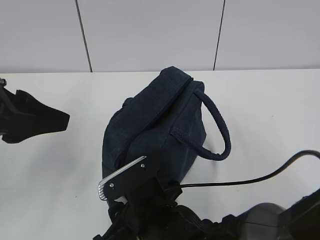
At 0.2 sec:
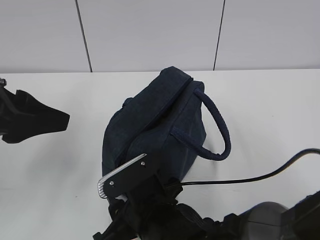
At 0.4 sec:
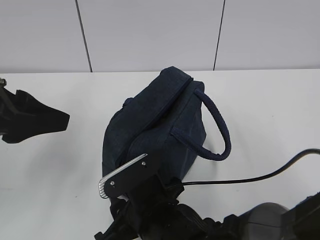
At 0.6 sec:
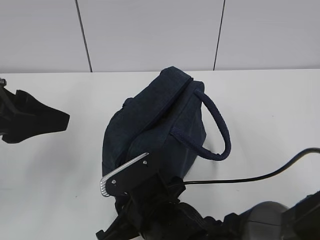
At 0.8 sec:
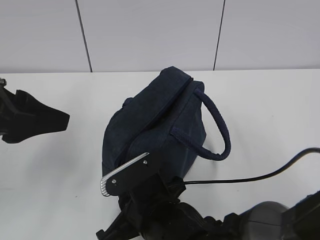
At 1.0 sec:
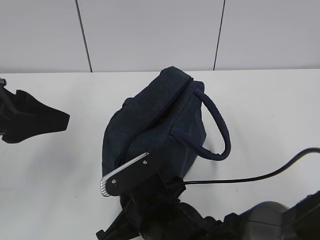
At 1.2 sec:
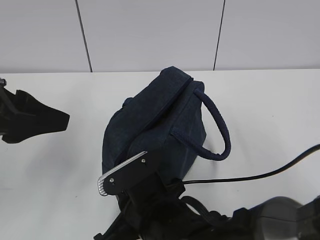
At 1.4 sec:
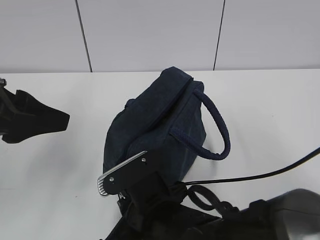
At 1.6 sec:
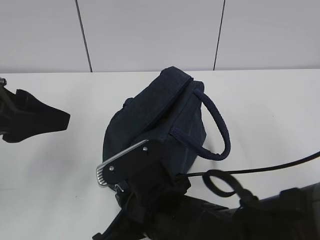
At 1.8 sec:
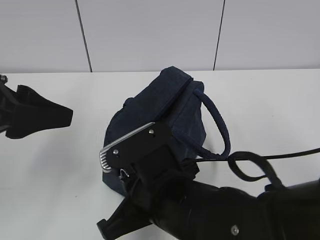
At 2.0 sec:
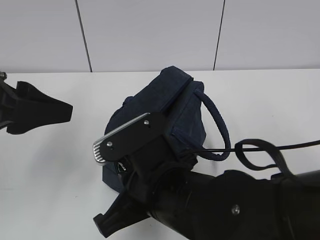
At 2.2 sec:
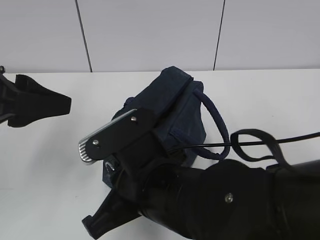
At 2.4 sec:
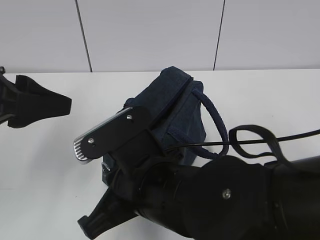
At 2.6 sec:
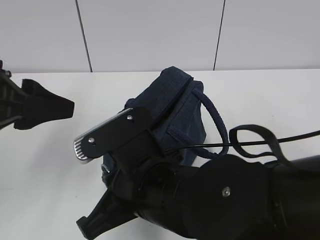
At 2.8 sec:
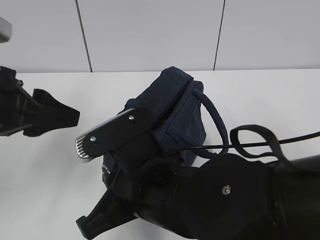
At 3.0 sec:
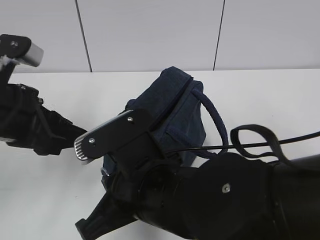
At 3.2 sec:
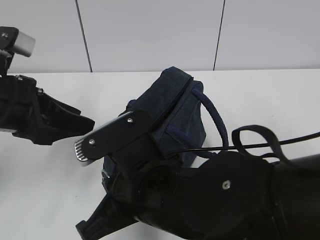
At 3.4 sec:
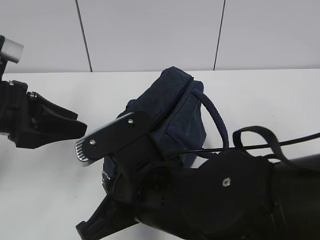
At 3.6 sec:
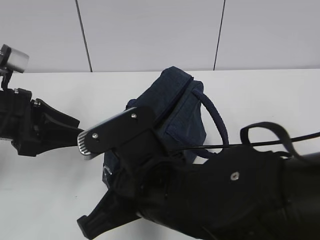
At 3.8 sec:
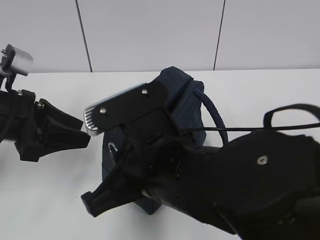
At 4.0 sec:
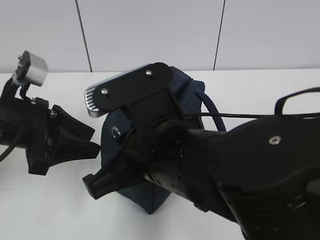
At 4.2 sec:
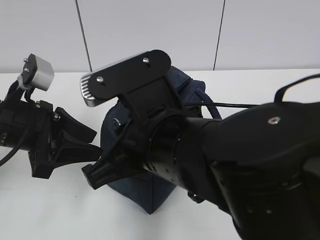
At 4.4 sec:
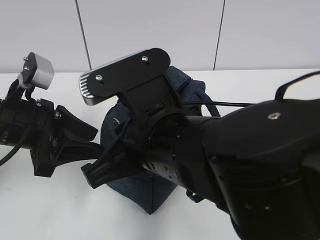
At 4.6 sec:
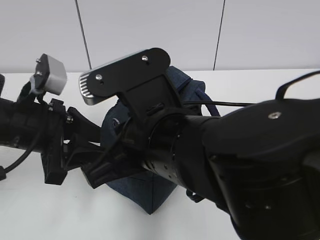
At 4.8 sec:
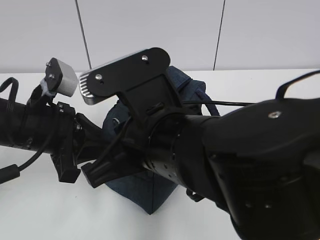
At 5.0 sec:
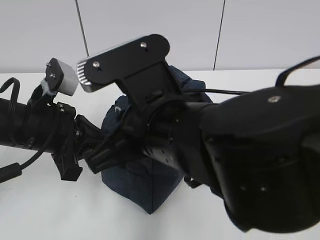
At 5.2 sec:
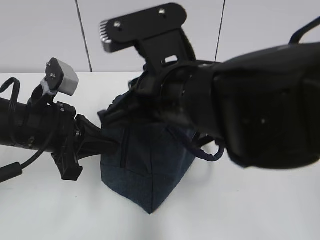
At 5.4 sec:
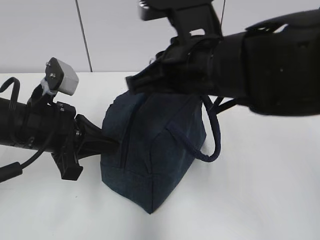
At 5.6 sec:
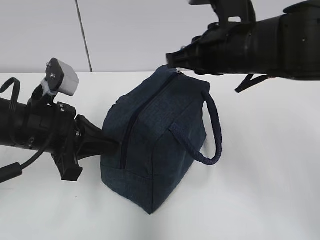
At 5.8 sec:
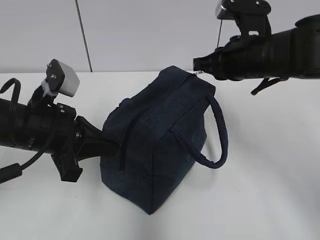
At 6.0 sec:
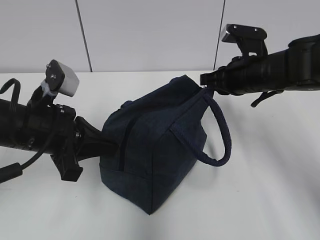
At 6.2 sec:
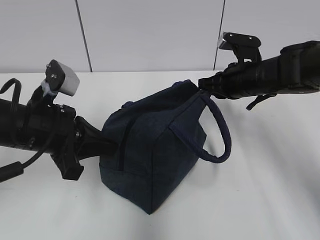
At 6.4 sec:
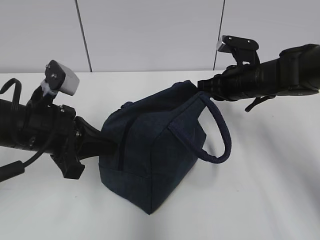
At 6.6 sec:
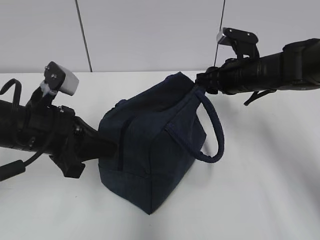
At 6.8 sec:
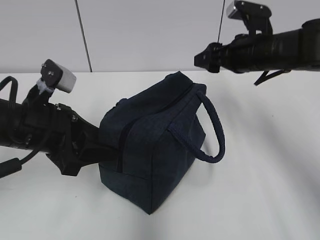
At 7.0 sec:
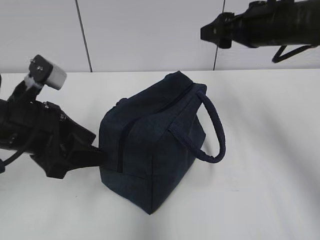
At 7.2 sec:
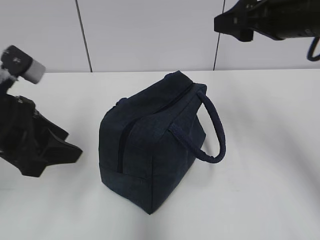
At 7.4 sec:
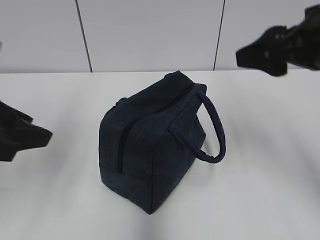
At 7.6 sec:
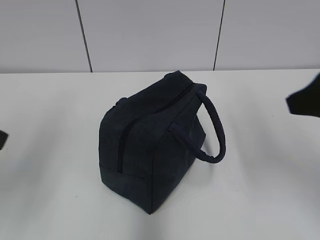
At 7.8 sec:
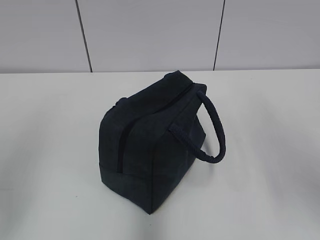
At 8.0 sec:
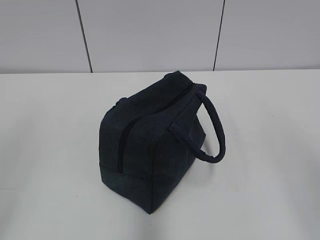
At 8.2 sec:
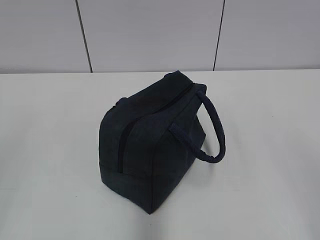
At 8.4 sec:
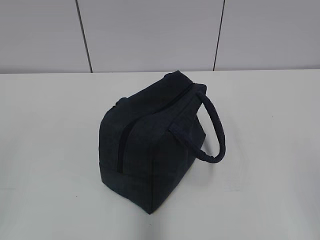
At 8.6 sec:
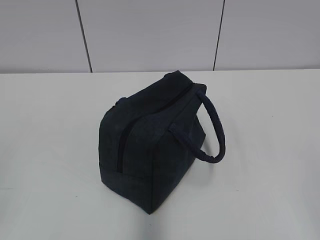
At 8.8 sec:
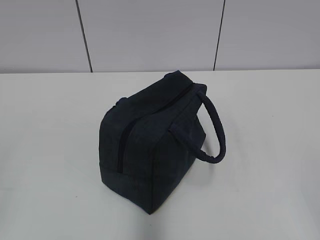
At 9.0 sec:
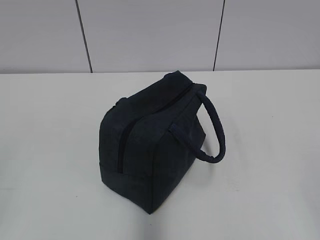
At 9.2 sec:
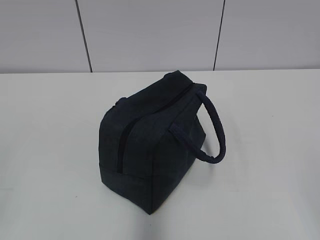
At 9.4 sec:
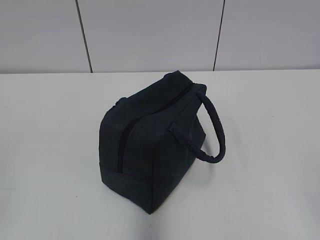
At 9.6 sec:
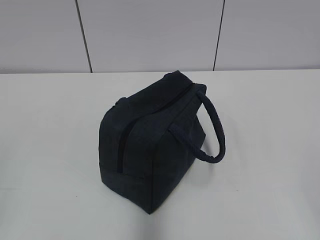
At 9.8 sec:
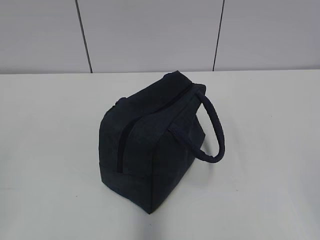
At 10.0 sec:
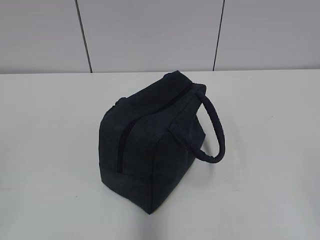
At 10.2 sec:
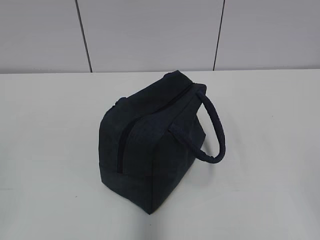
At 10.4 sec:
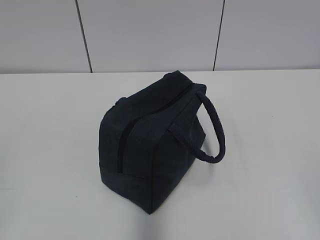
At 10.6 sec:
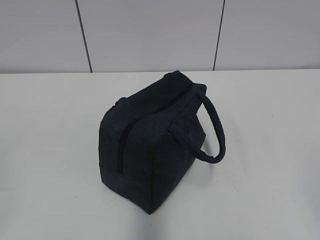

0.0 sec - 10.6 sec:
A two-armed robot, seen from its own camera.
0.0 sec - 1.6 sec: The right gripper is displaced upward by approximately 5 cm, and closes.
1.6 sec - 3.0 sec: The left gripper changes place by about 5 cm.
3.0 sec - 4.6 sec: The right gripper is displaced upward by some 5 cm.
4.6 sec - 6.0 sec: The right gripper shifts roughly 25 cm forward and to the right. The left gripper closes.
6.0 sec - 7.6 sec: The left gripper heads upward, backward and to the left, covering roughly 20 cm, and opens up, while the right gripper shifts about 25 cm backward and upward, and opens.
7.6 sec - 9.0 sec: Both grippers move backward, some 15 cm.

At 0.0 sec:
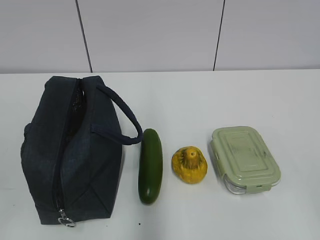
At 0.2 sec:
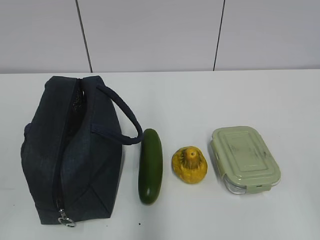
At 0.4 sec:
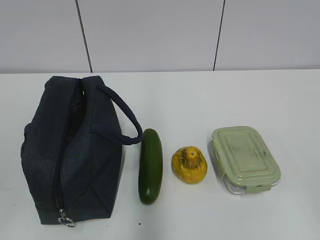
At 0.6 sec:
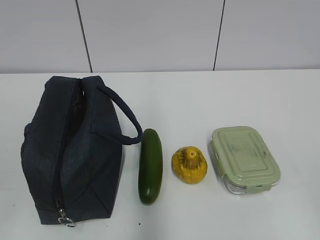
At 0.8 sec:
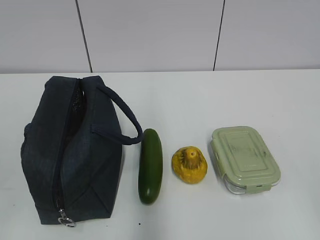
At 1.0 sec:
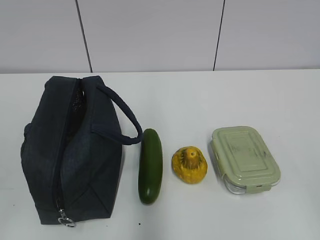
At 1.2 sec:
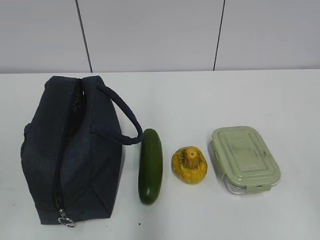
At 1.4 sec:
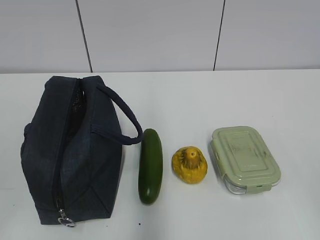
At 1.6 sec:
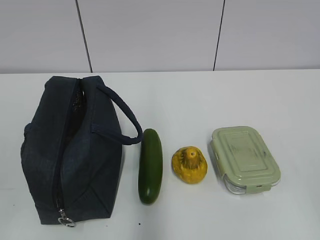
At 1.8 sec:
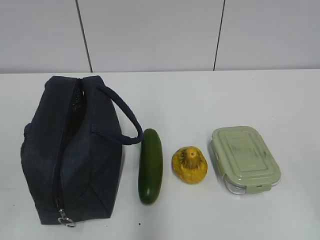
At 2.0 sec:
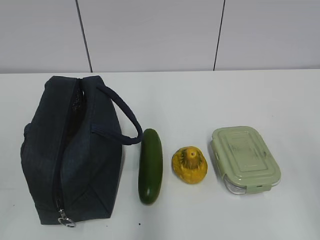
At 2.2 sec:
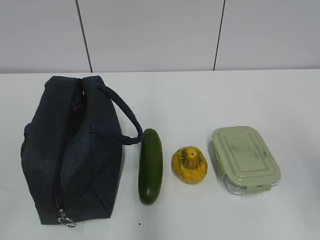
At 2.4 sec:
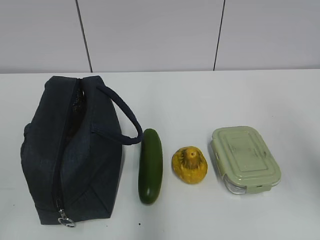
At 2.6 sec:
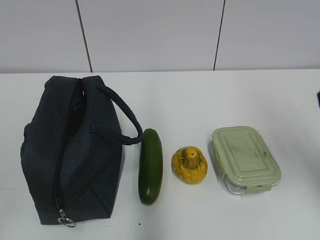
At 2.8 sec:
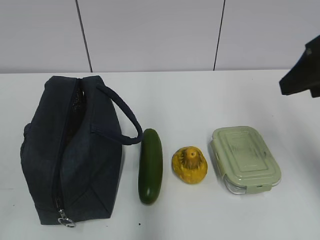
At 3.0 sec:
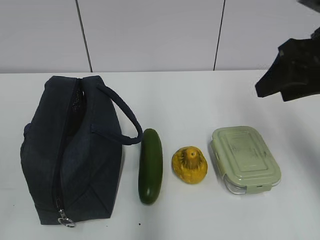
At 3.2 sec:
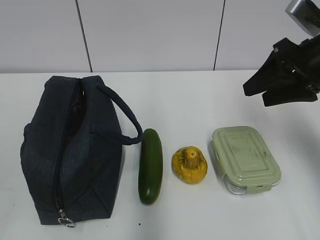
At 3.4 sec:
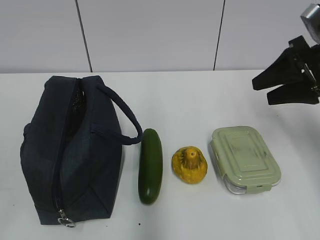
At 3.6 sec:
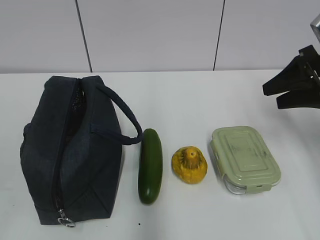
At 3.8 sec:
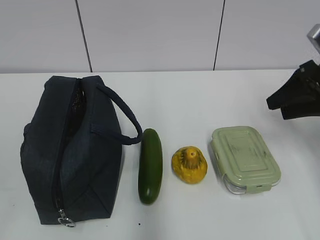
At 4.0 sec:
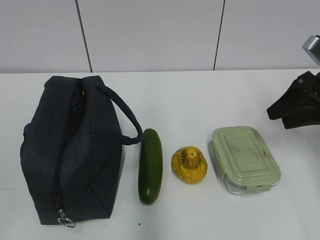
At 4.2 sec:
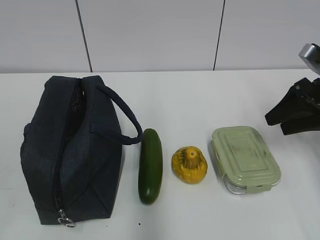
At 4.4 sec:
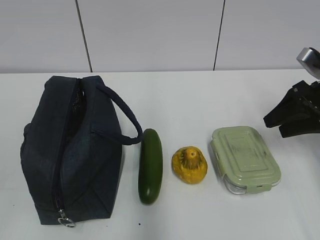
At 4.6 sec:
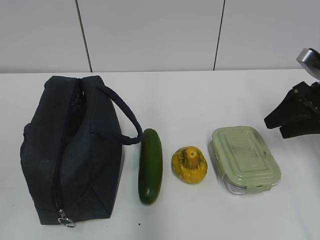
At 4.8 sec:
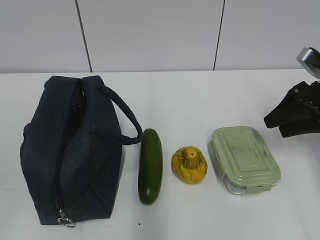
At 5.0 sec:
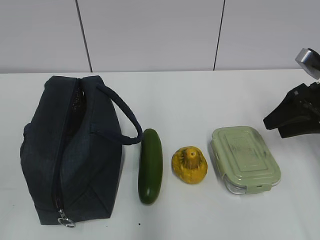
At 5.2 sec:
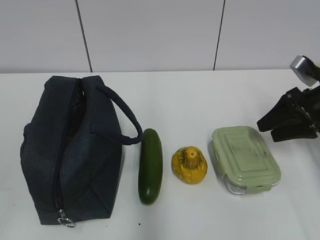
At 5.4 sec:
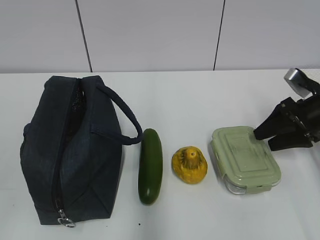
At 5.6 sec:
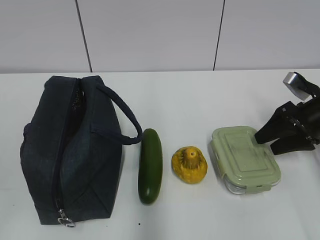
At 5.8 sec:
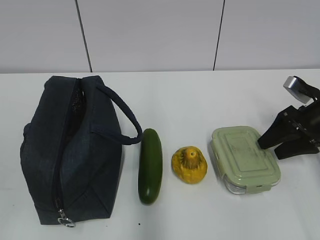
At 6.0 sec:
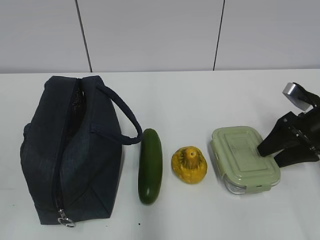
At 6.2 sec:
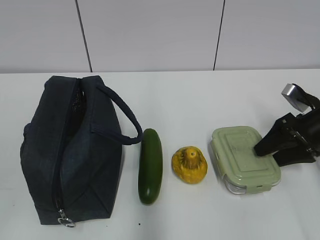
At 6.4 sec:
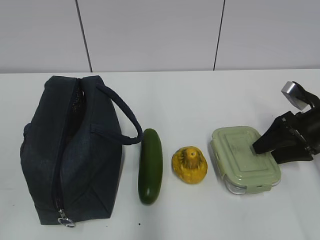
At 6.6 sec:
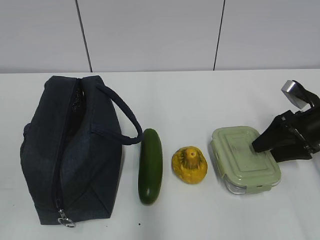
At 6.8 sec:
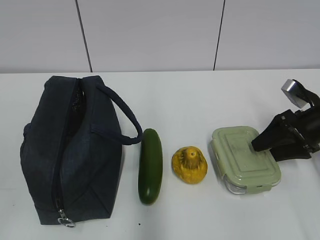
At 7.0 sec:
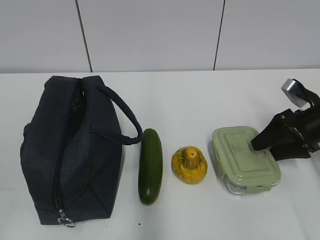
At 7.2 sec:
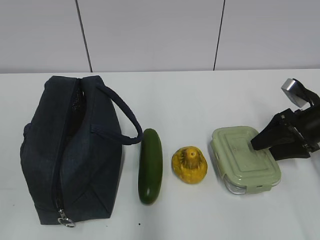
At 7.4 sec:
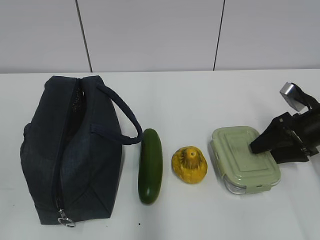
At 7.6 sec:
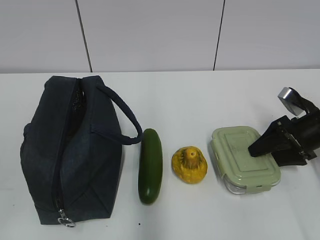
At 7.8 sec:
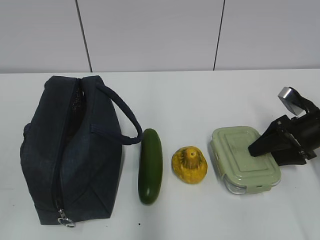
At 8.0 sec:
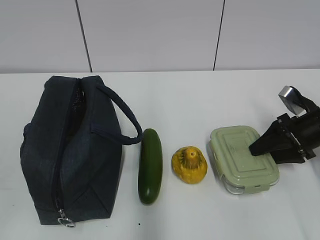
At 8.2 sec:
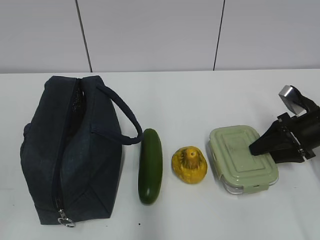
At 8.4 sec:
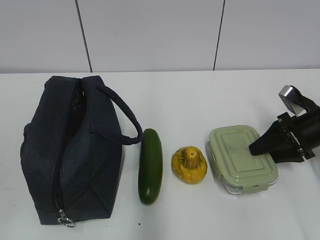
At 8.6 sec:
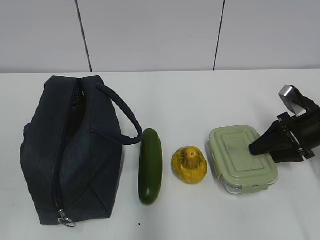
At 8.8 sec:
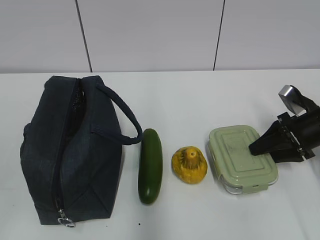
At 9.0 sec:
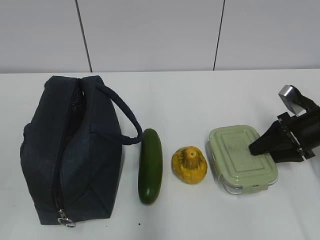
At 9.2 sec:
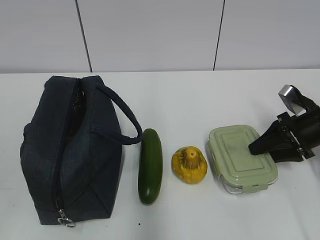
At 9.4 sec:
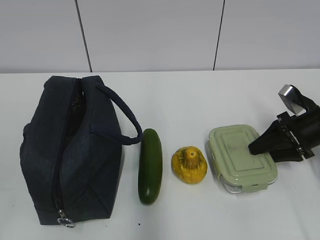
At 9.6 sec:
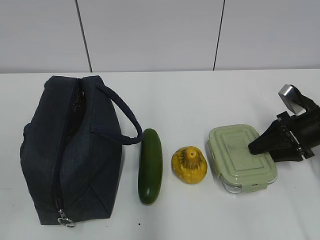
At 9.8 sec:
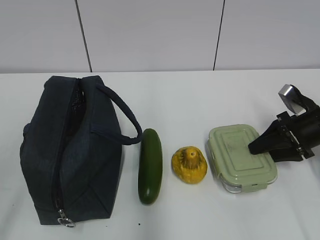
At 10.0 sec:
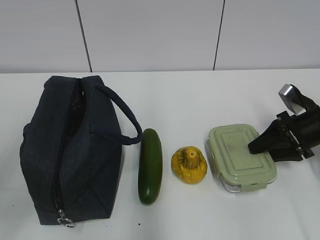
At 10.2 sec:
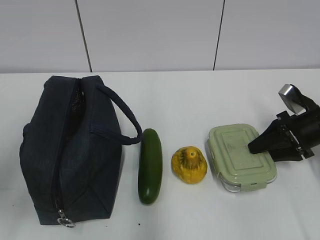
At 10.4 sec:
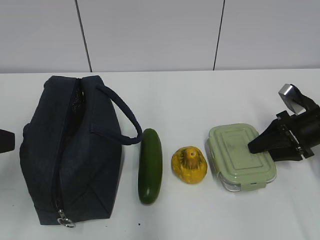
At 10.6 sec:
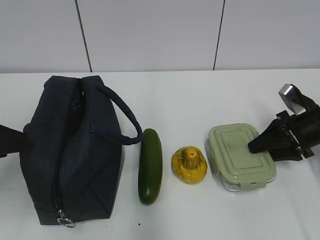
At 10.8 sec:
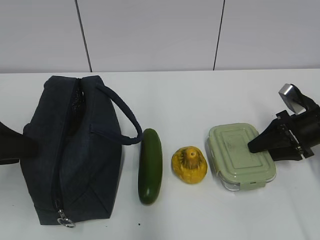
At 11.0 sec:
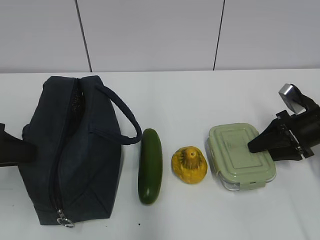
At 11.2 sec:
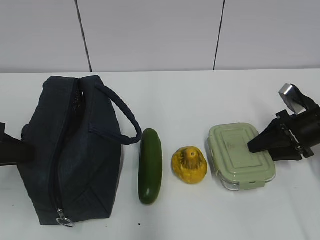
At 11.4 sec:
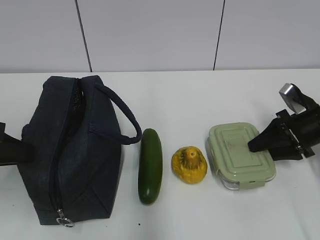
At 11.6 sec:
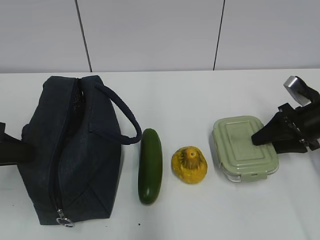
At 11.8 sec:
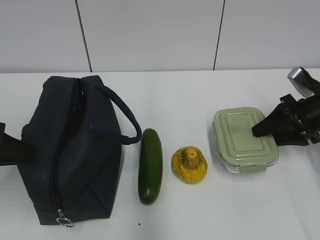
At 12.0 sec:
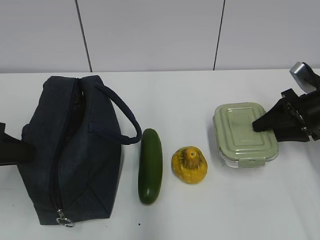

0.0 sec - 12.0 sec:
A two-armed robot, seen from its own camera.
Step, 0.0 sec - 8.2 sec: Grab the lunch box with your right hand.
1.6 sec - 3.0 sec: The right gripper shifts some 30 cm forward.
3.0 sec - 4.4 sec: The right gripper is displaced downward, to the right and forward by some 15 cm.
4.4 sec - 6.0 sec: The right gripper travels downward by about 5 cm.
6.0 sec - 7.6 sec: The grippers make only small movements.
7.6 sec - 9.0 sec: The two grippers keep their place.
9.0 sec - 10.4 sec: The left gripper heads forward, covering roughly 15 cm.
10.4 sec - 12.0 sec: The left gripper closes.
